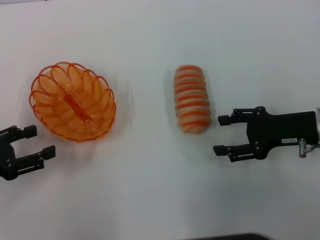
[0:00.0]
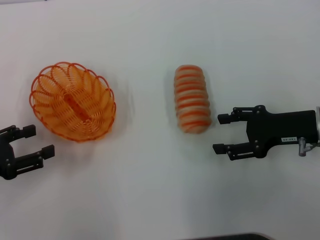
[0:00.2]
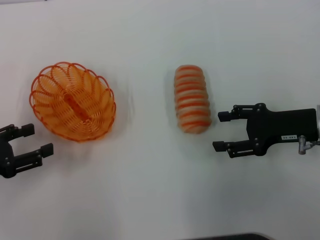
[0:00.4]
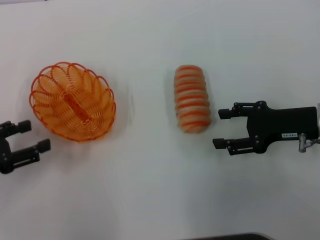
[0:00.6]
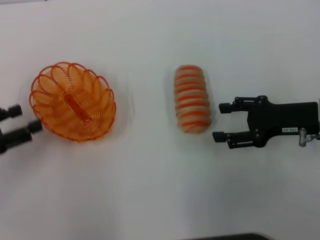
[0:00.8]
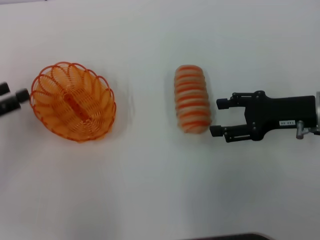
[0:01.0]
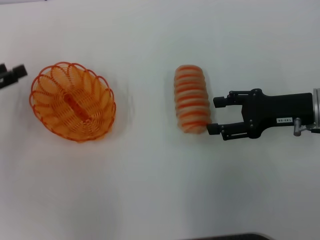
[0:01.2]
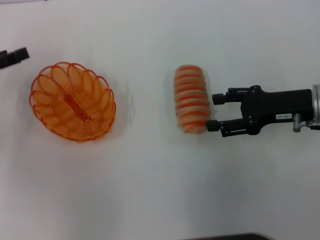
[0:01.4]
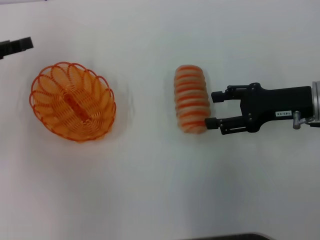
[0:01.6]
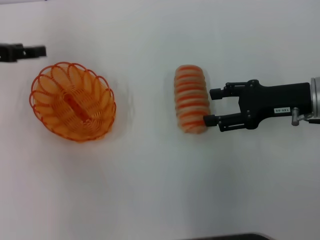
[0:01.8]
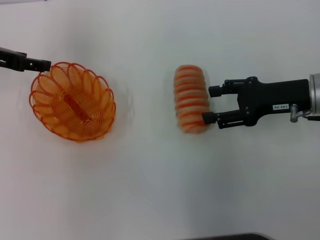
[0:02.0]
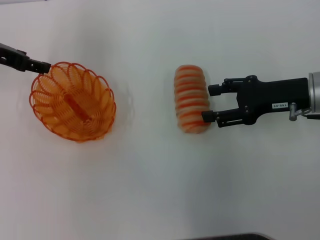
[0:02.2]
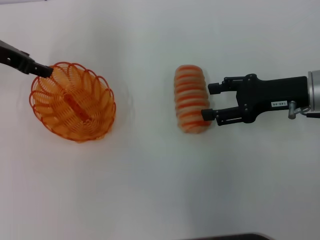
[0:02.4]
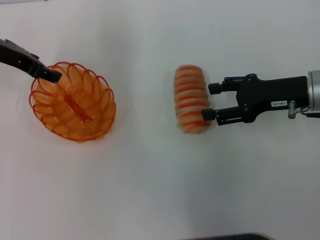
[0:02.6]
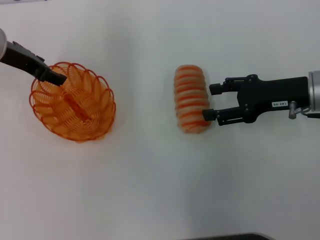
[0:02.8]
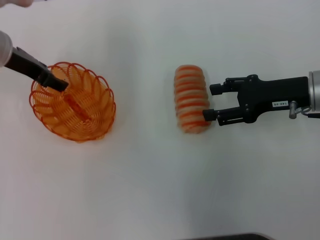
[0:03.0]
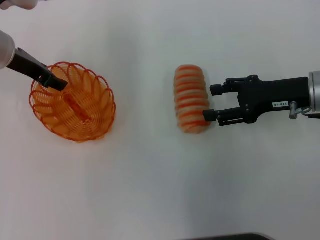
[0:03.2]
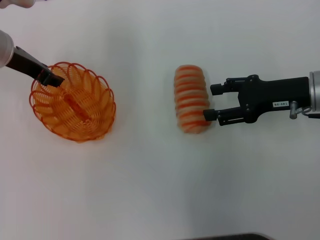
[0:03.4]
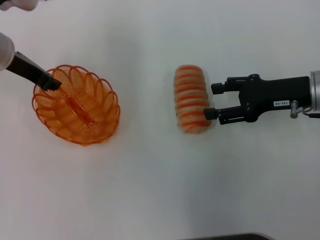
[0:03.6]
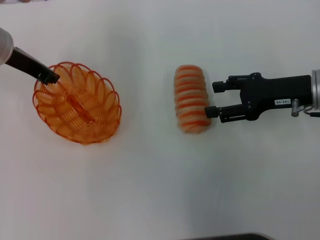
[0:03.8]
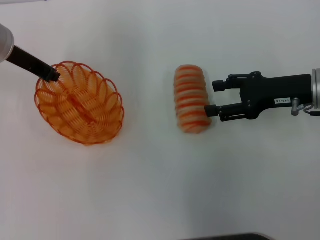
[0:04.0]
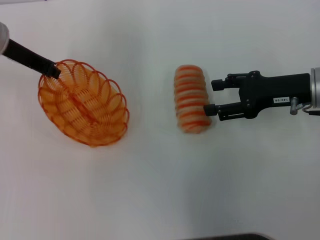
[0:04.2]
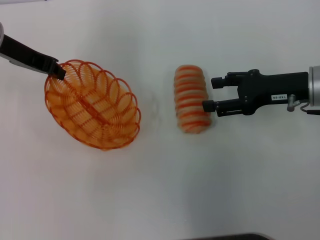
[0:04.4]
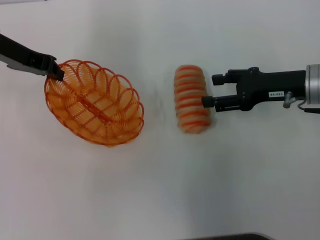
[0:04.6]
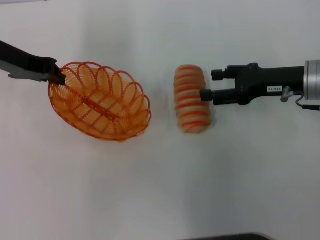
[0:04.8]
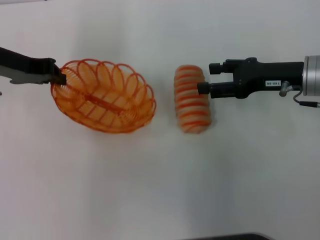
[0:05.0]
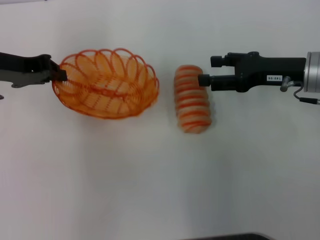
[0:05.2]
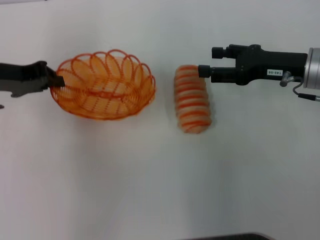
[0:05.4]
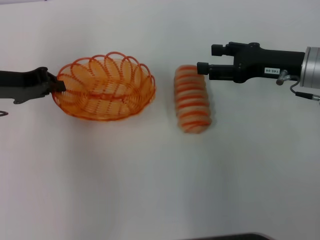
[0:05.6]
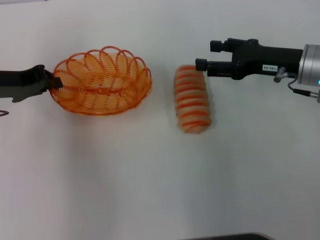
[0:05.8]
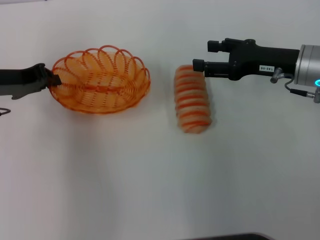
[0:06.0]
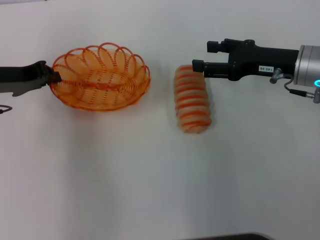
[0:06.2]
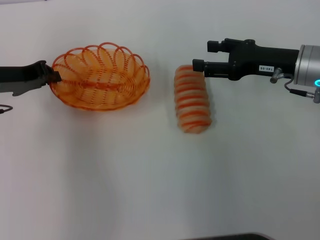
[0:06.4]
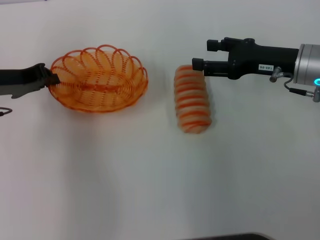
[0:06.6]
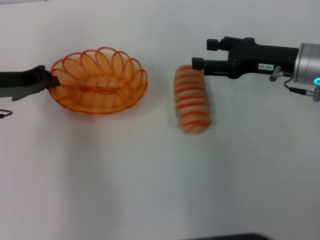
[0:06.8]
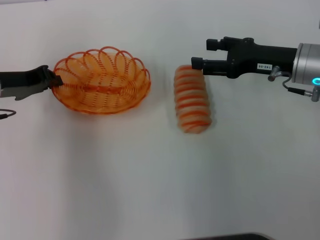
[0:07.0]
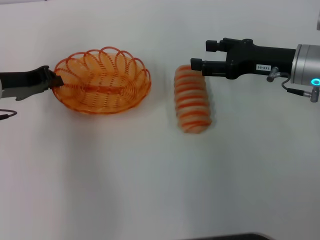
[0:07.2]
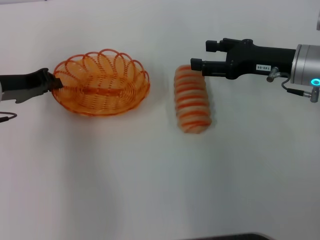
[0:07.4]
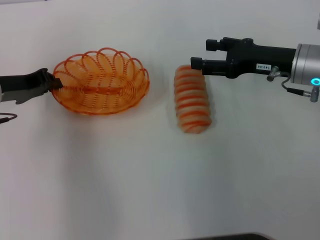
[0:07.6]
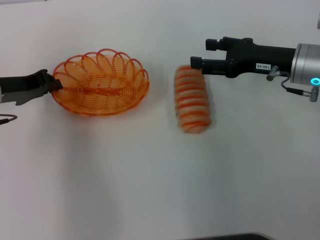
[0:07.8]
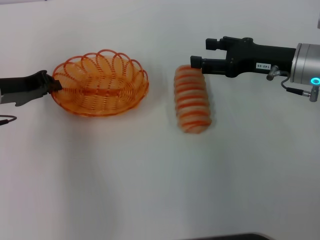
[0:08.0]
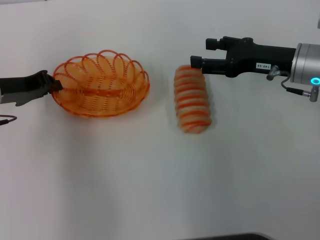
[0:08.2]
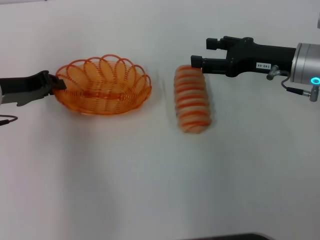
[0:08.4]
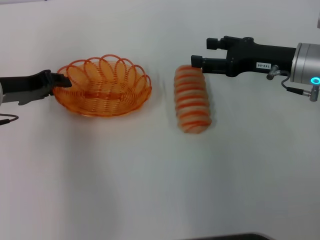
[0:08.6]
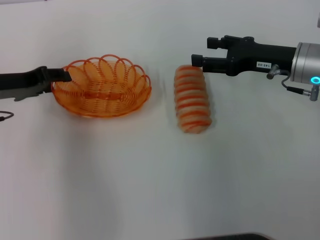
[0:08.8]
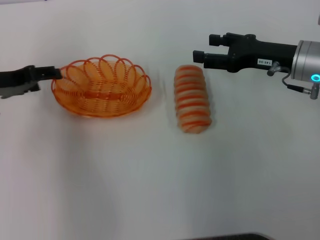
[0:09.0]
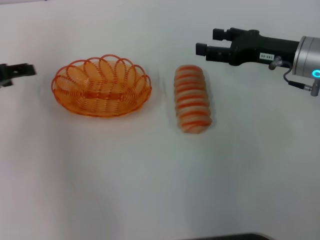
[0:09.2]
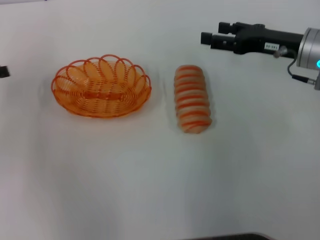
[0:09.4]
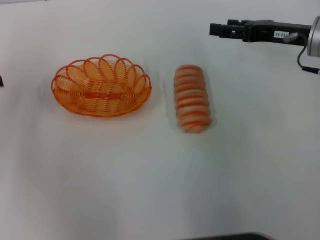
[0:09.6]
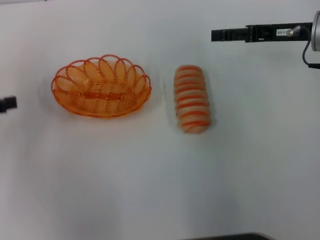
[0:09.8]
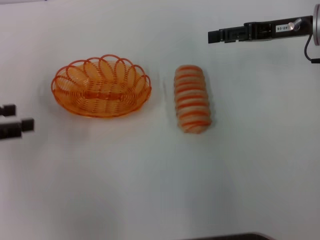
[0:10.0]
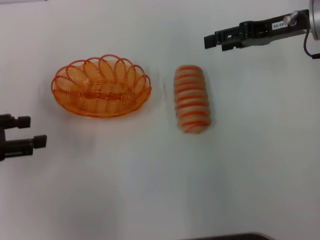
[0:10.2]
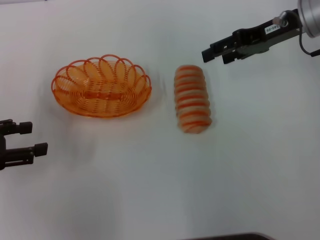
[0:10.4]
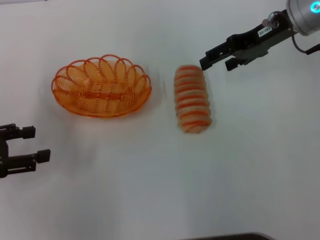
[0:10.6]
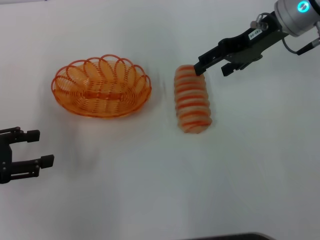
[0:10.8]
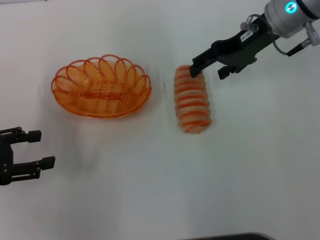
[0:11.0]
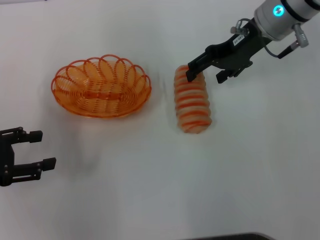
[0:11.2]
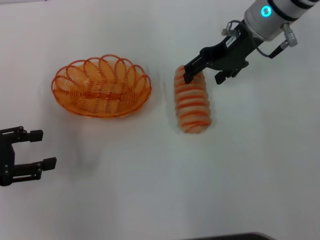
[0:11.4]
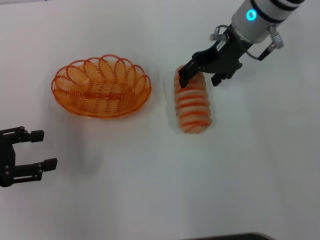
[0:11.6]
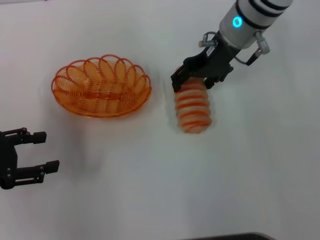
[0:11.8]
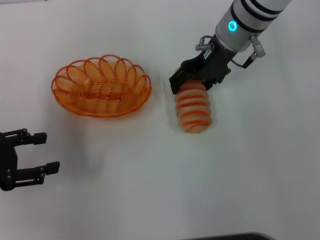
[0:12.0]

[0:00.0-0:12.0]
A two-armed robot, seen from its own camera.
Step, 0.0 to 4.4 s: Pick up the basket with the left gripper.
Step, 4.6 to 9.0 s: Place the basket in the center of view with the left gripper.
0.0 to 1.6 s: The left gripper goes some 15 cm forward and upward.
1.6 to 3.0 s: The left gripper heads to the right and forward, covering some 10 cm.
3.0 to 4.4 s: The left gripper closes.
4.4 to 6.0 s: The left gripper is displaced downward and backward by roughly 10 cm.
6.0 to 7.6 s: There are only small adjustments of the grippers.
7.6 to 9.0 s: The left gripper opens up.
9.0 to 10.4 s: The right gripper is displaced upward and forward by some 10 cm, while the left gripper travels backward and to the left by approximately 10 cm.
10.4 to 12.0 s: The right gripper travels to the left by some 10 cm.

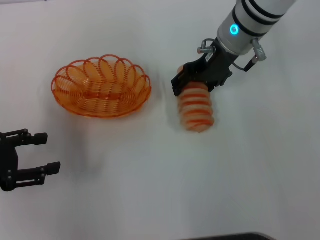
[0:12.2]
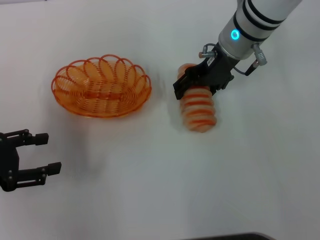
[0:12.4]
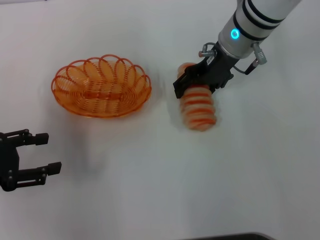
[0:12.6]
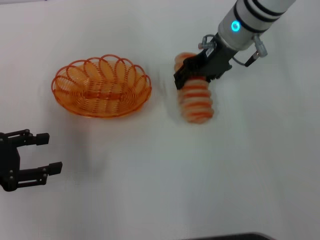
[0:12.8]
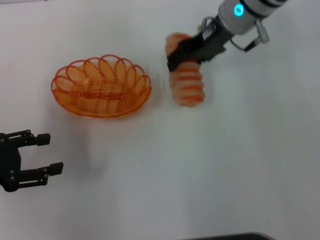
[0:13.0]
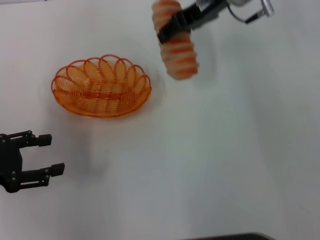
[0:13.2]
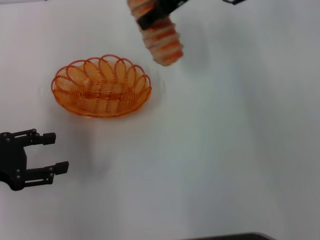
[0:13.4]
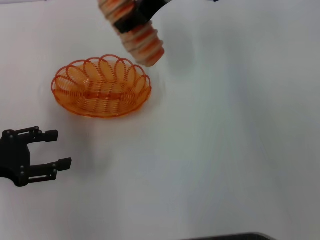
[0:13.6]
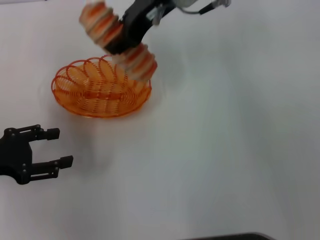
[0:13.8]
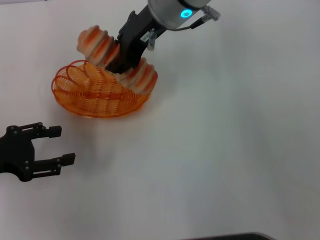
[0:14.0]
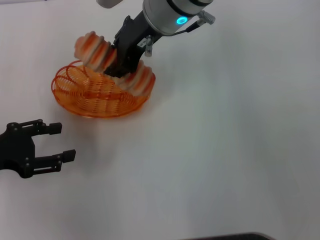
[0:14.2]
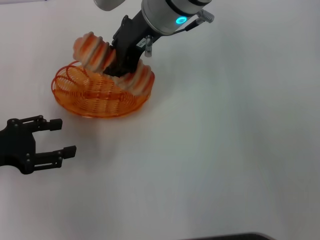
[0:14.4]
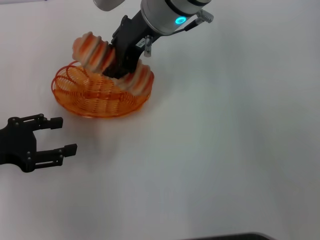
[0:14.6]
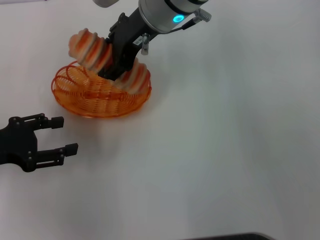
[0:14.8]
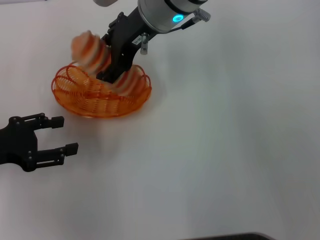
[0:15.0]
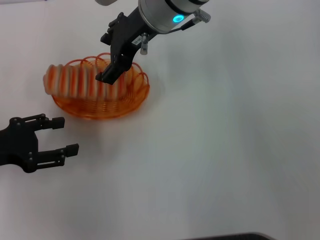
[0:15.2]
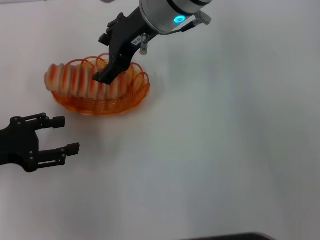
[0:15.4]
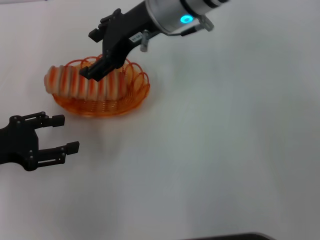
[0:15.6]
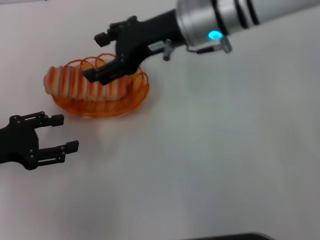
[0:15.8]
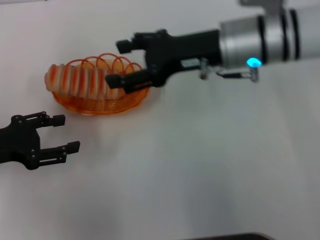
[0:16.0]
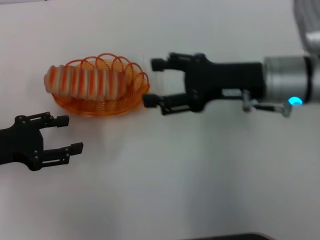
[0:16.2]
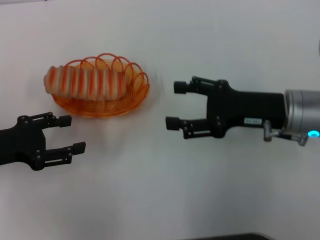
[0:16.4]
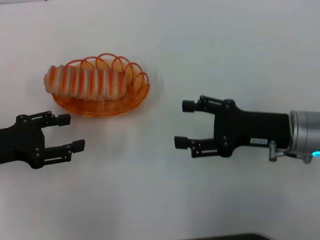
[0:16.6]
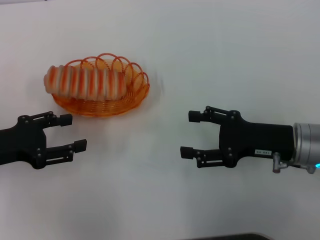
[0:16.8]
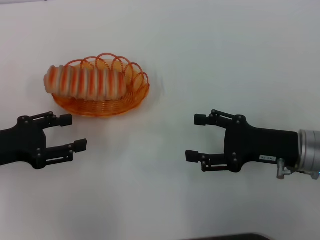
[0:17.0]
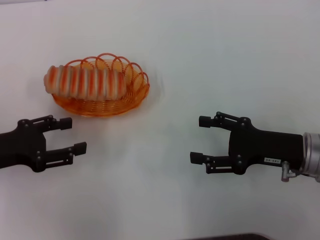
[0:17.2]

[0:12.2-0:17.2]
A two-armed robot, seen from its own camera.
Step, 13.0 to 15.6 s: Place the long bread into the basket with the right gripper.
12.2 to 13.8 s: The right gripper is displaced upward and to the left by roughly 10 cm, and closes.
13.8 to 15.6 s: The right gripper opens its fingers.
15.6 to 17.2 s: The right gripper shifts approximately 30 cm to the right, backward and downward.

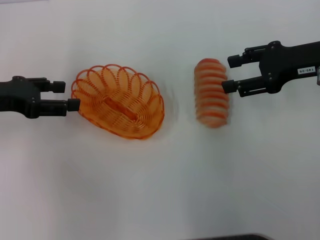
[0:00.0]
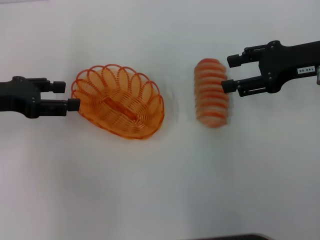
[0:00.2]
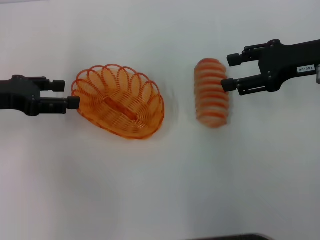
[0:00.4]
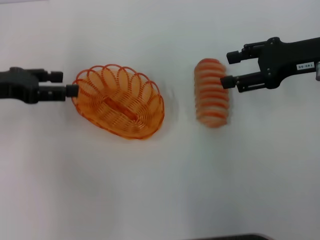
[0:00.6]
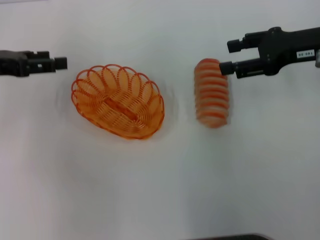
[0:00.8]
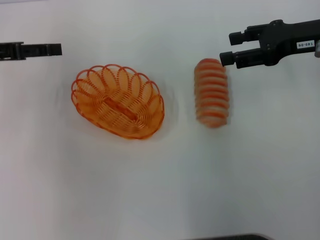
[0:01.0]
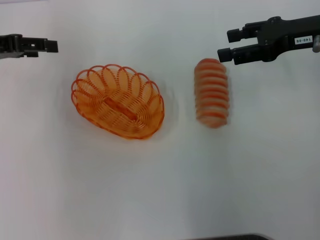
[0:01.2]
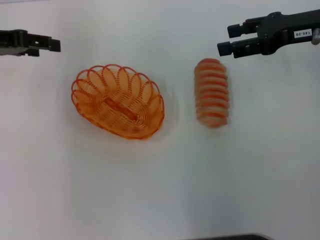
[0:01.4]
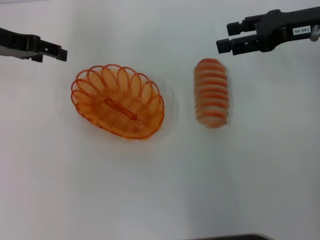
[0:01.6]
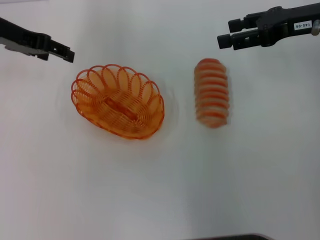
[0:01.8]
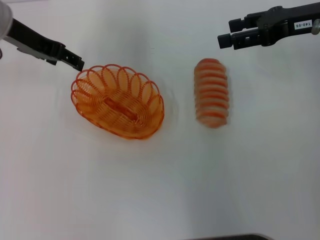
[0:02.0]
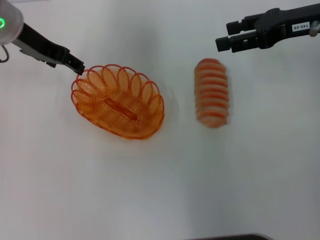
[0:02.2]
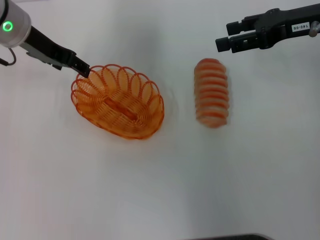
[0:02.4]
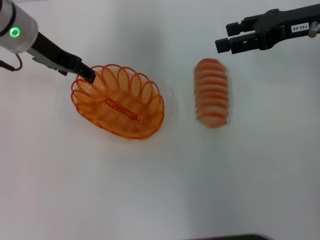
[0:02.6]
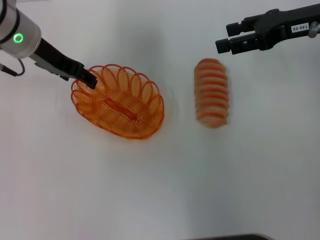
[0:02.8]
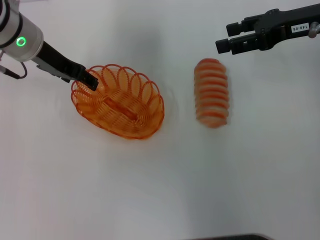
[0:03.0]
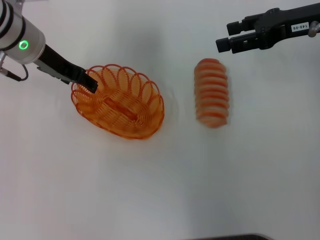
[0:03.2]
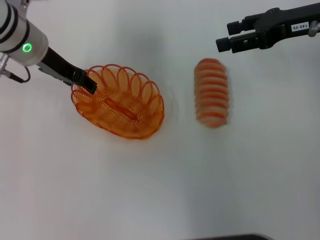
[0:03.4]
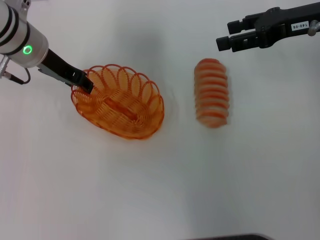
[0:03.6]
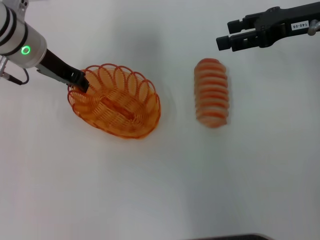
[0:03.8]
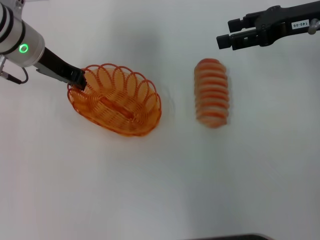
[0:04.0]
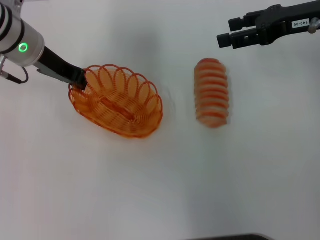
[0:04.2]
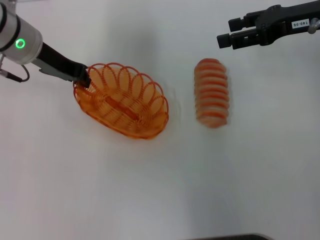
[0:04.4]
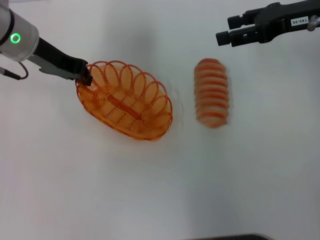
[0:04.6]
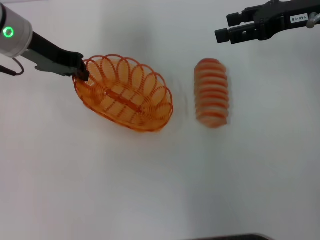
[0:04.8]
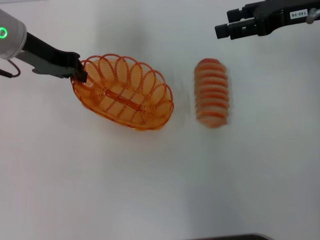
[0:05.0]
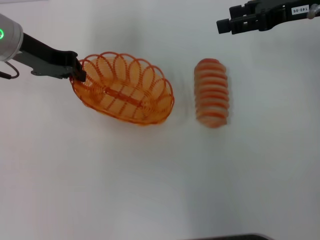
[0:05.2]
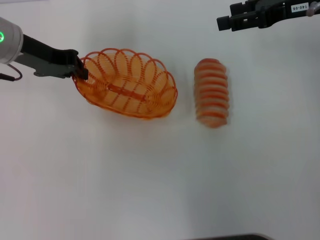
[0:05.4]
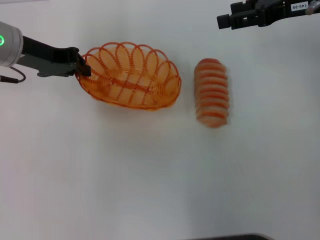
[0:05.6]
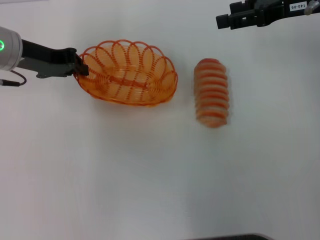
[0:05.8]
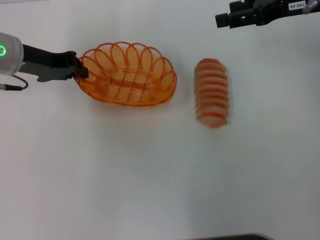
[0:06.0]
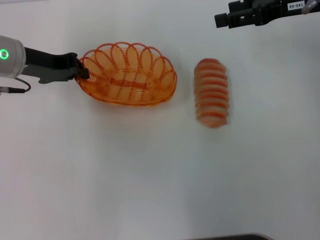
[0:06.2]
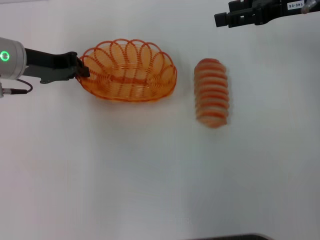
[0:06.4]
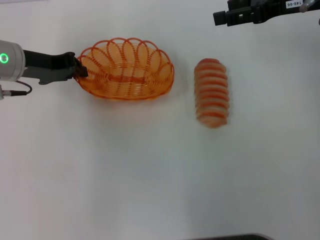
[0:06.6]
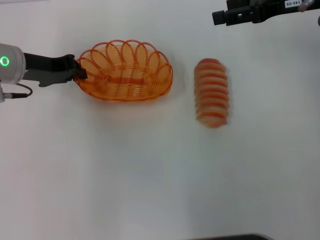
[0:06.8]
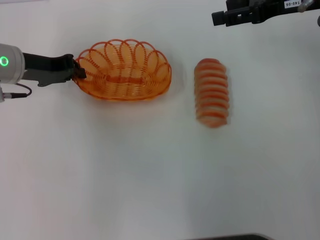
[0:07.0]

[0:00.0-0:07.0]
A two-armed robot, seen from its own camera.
Step, 0.0 to 4.6 s: Pick up the basket with the left gripper.
0.0 to 1.4 s: The left gripper travels forward by roughly 5 cm.
1.4 to 2.8 s: The left gripper goes about 10 cm to the right.
2.8 to 4.2 s: The left gripper closes up.
5.6 to 7.0 s: The grippers stay close to where they were, moving slightly.
